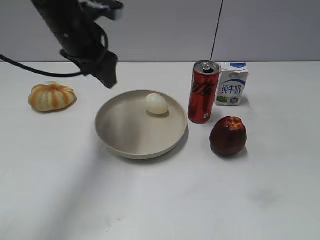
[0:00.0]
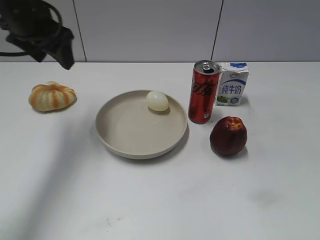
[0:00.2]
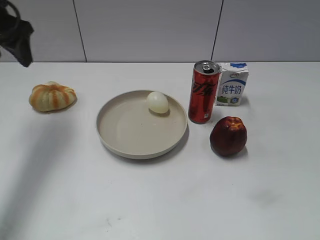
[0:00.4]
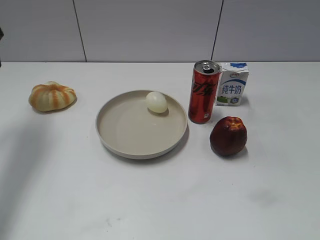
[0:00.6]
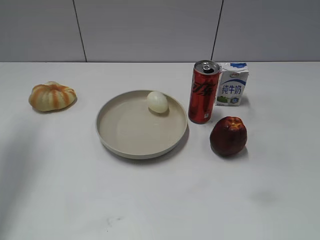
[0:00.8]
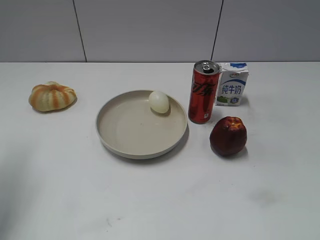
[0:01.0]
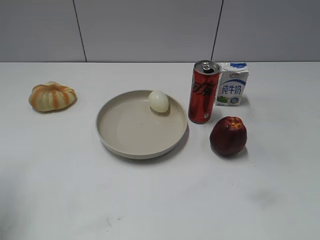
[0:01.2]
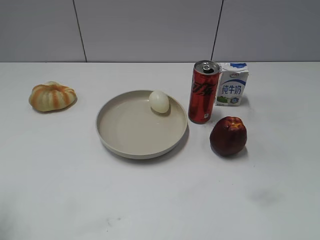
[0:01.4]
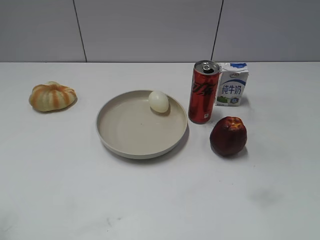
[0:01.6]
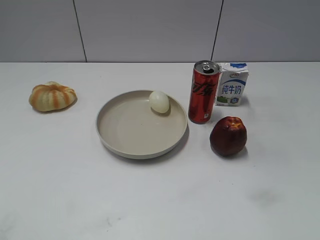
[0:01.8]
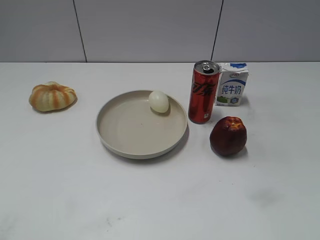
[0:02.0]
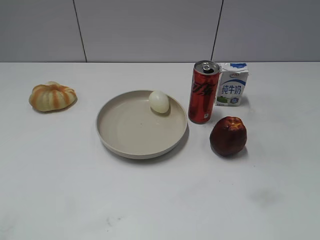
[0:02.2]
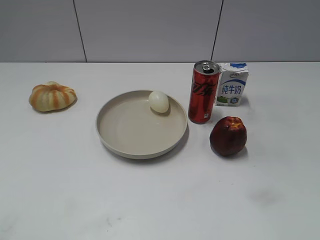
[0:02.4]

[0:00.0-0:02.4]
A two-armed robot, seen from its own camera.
0:00.0 to 0:01.2: The left gripper shifts roughly 25 cm to the left and backward.
0:01.2 to 0:02.4: The left gripper heads backward, covering about 20 cm.
